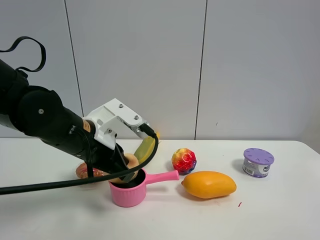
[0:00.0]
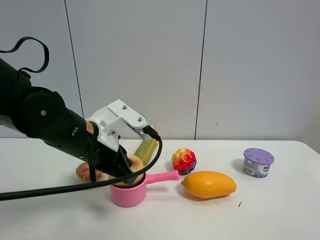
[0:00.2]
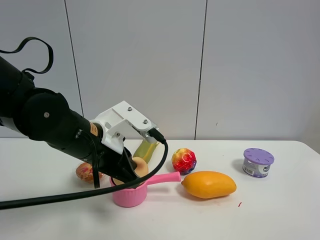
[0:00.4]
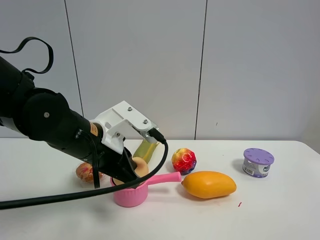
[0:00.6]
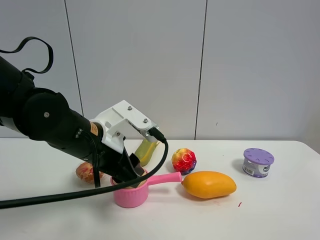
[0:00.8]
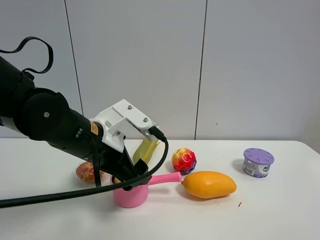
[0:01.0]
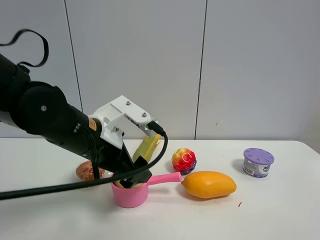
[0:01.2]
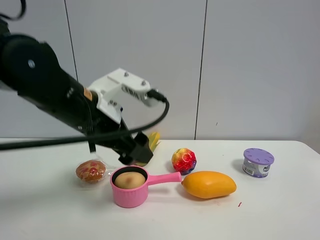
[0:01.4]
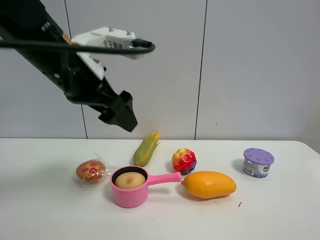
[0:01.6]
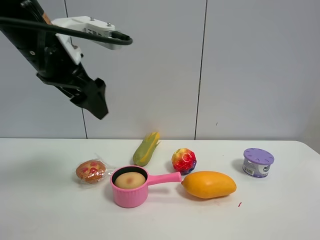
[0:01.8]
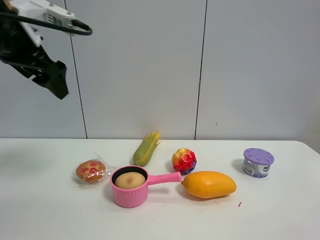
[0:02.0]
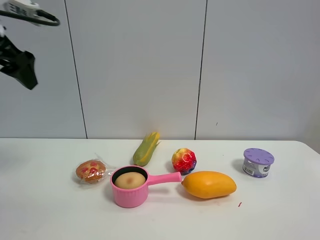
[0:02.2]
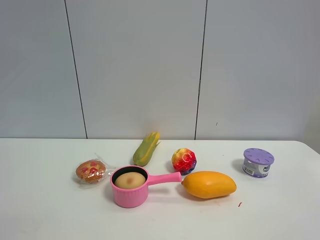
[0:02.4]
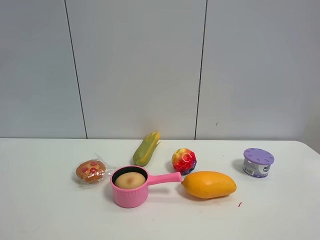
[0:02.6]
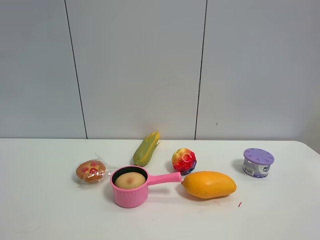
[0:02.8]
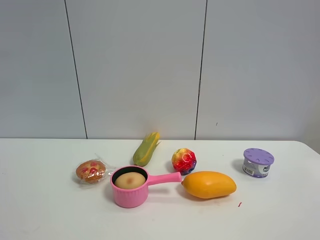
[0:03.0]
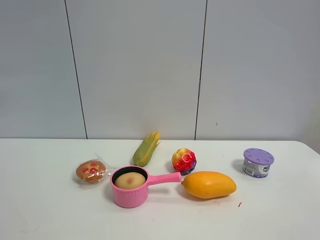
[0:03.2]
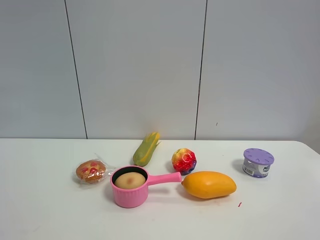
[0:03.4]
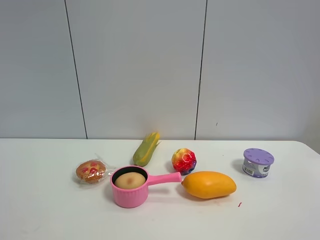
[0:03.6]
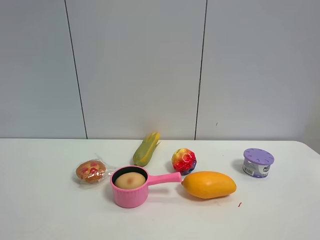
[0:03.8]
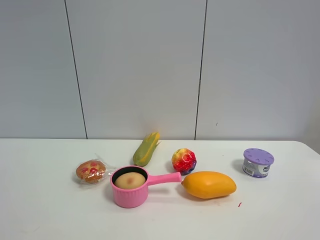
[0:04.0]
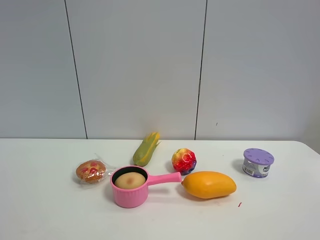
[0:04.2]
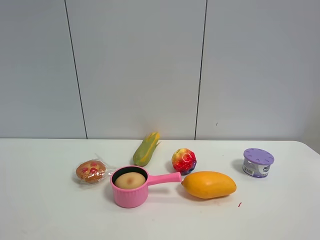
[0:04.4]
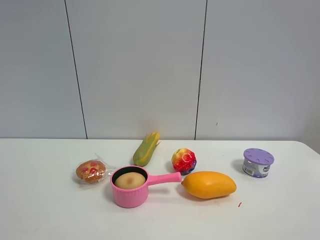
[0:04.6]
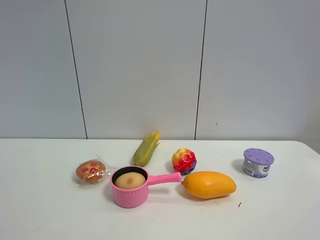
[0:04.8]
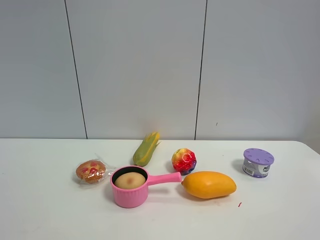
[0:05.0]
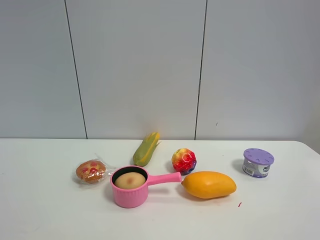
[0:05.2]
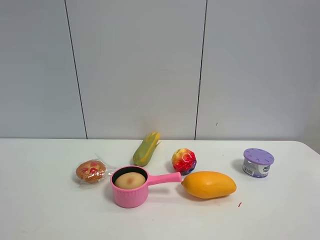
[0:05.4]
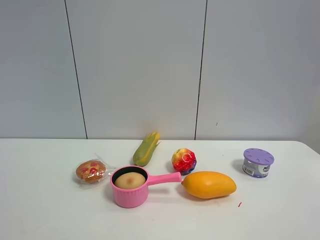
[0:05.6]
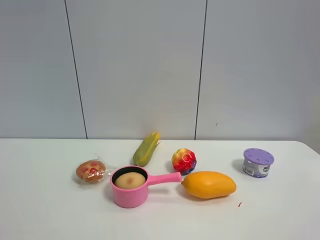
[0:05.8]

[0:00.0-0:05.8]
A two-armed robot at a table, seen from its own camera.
Task of the whole recording: the gripper move the object.
0:00.0 to 0:01.4: The left gripper is displaced upward by about 5 cm, and opens its fingers.
0:01.4 to 0:02.8: The left gripper heads to the left, upward and backward, covering roughly 35 cm.
0:04.4 to 0:05.8: Neither gripper changes place.

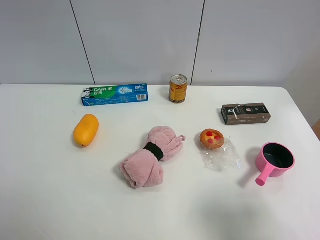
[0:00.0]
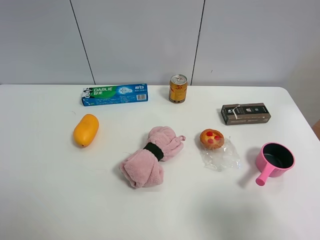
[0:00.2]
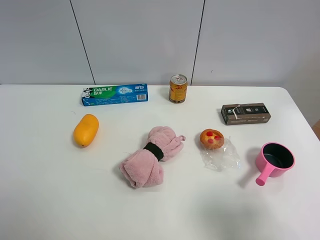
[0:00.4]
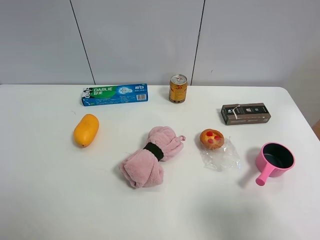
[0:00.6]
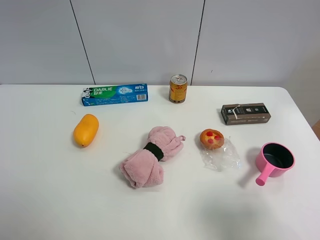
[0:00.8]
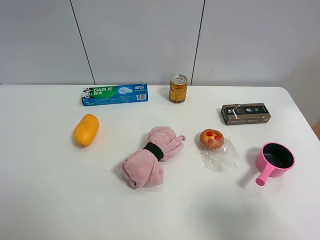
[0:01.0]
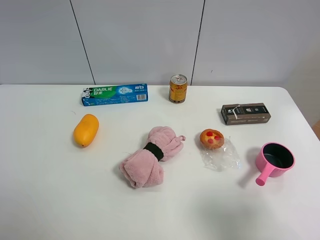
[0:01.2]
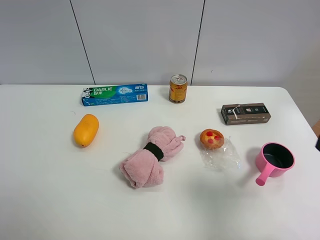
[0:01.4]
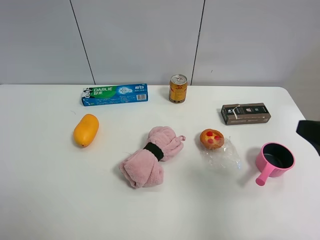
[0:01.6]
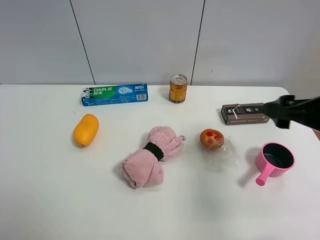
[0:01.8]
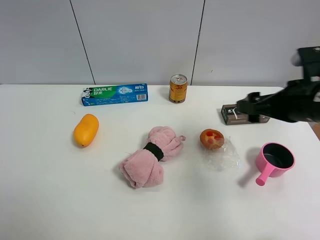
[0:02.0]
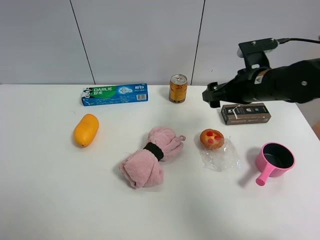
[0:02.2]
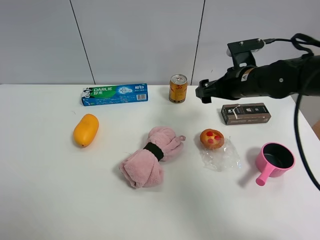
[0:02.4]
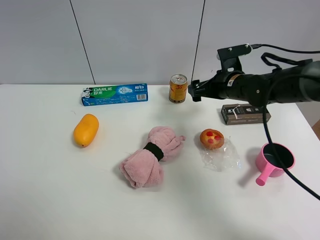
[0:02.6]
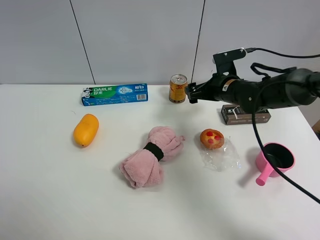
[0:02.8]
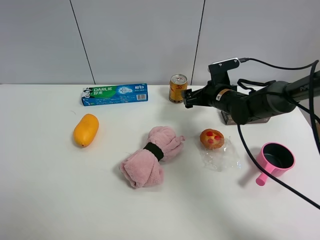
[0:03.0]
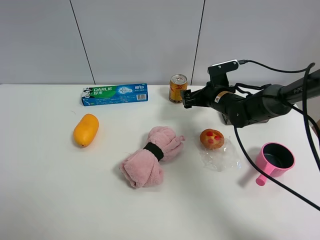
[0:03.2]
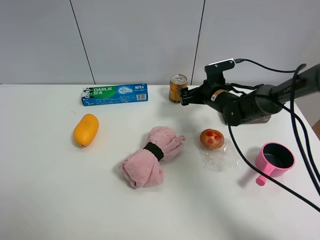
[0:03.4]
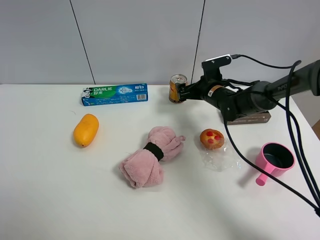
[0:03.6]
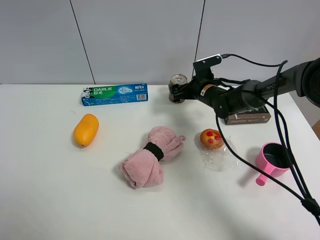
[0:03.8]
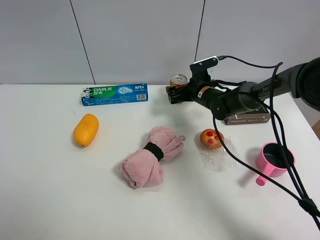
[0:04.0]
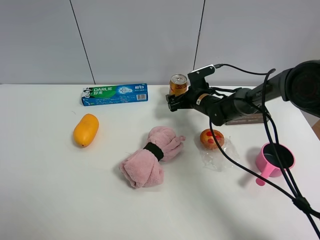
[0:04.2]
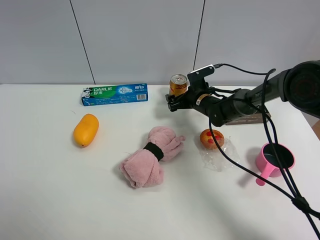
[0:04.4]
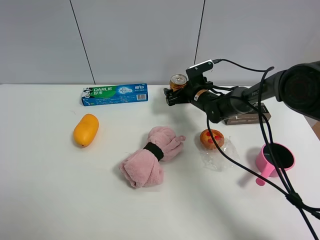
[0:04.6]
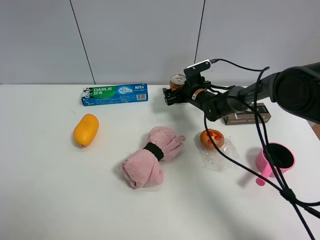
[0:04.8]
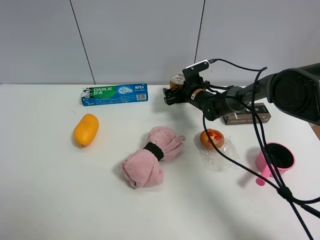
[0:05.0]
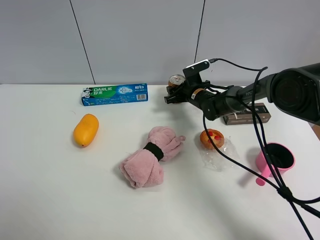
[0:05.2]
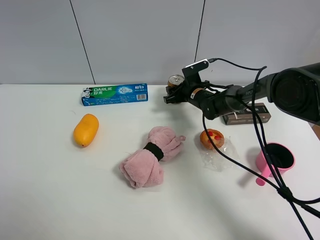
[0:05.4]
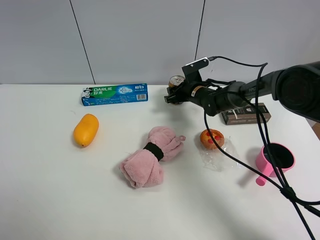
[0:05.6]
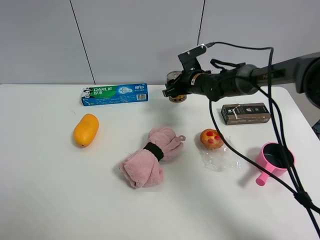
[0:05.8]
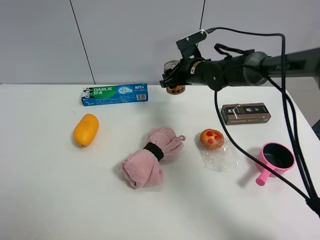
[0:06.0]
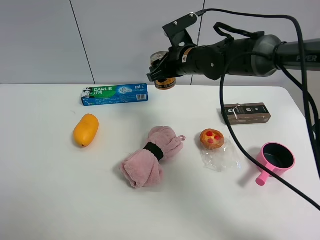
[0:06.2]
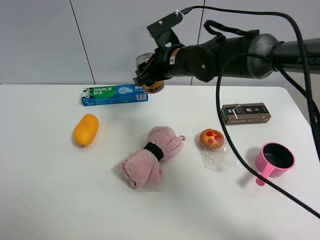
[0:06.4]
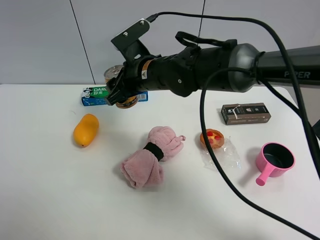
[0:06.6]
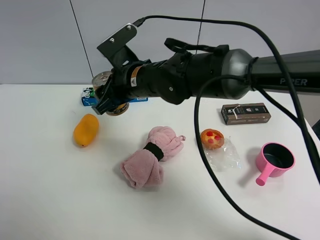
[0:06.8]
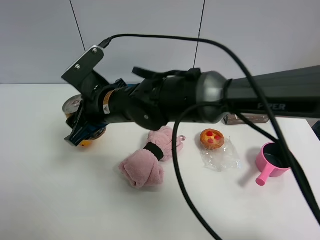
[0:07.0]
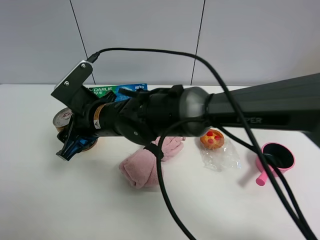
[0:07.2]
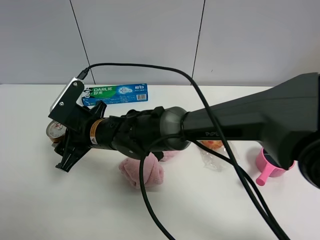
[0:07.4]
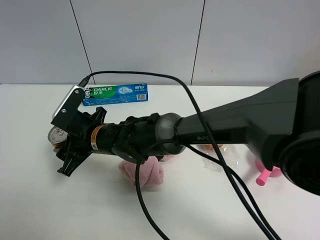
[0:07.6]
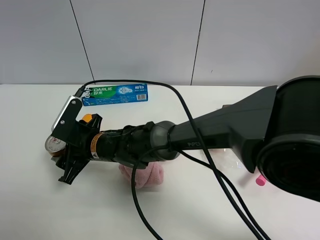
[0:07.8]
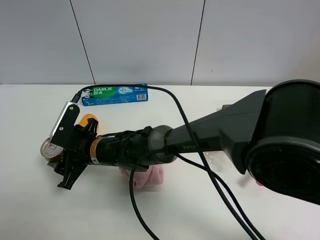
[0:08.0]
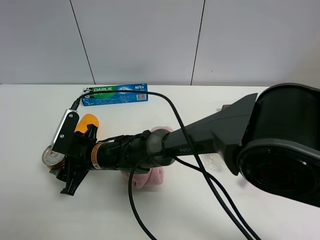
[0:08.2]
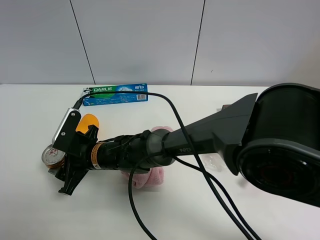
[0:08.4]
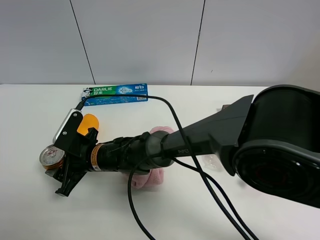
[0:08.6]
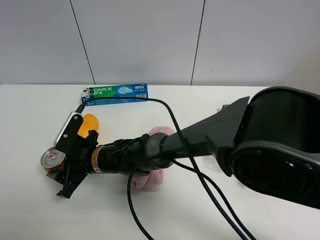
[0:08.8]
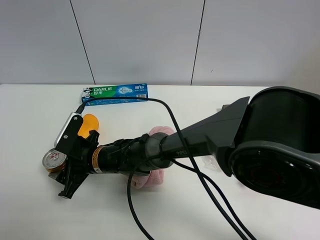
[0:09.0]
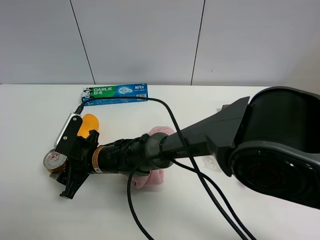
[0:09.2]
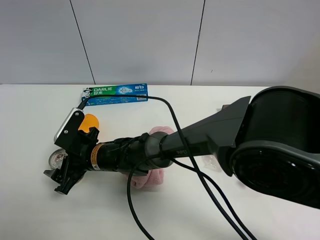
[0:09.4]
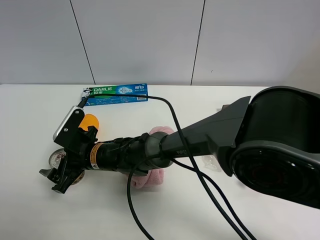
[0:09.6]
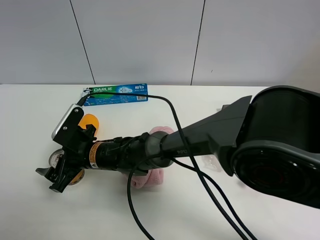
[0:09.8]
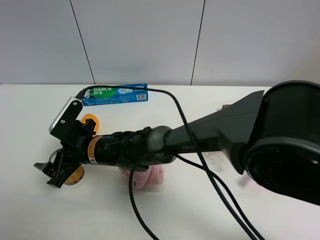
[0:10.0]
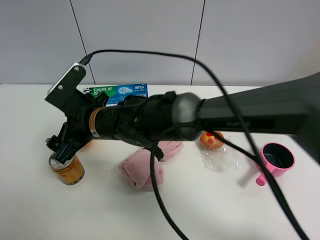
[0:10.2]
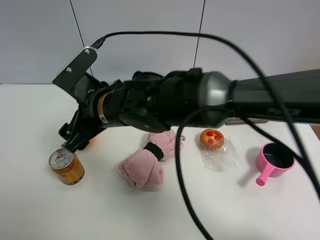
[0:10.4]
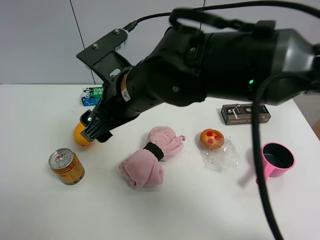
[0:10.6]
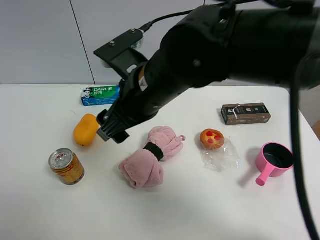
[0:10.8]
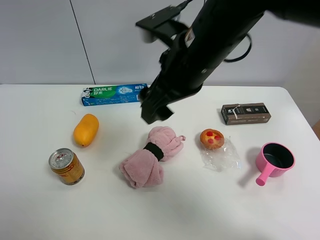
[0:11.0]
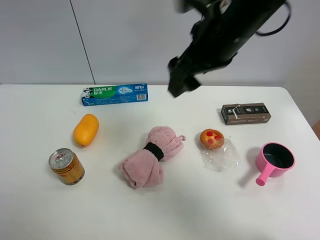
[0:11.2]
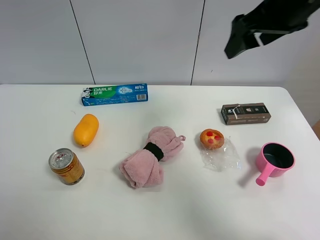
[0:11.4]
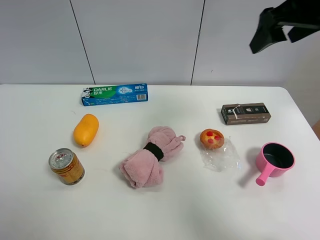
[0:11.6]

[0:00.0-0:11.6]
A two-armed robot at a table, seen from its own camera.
Task of the whole recording: the gripper move the object.
Step, 0:00.0 to 0:05.2: Grasp the red bull with the right gripper.
Step, 0:05.4 to 0:09.6: Place the red bull on the table with the right gripper.
0:00.0 to 0:01.4: The right gripper moves forward, roughly 5 cm.
0:01.4 to 0:02.8: The right gripper is displaced forward and downward by approximately 35 cm.
0:02.8 to 0:04.4: The right gripper moves downward and forward, roughly 10 cm.
0:04.4 to 0:05.8: The right gripper goes roughly 5 cm upward, and closes up.
0:05.8 to 0:07.2: The right gripper goes roughly 30 cm to the left and backward.
0:07.2 to 0:08.8: The right gripper travels downward by roughly 10 cm.
0:08.8 to 0:10.2: The right gripper travels upward by approximately 10 cm, and opens.
0:10.2 to 0:11.6: The right gripper heads to the right and upward, covering some 40 cm.

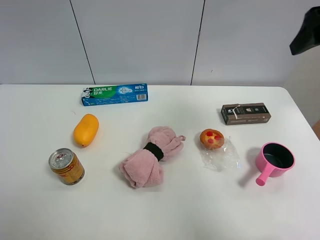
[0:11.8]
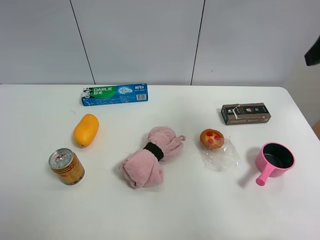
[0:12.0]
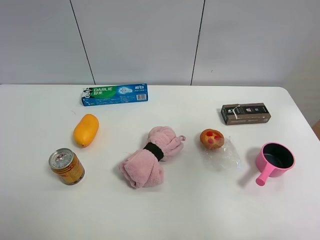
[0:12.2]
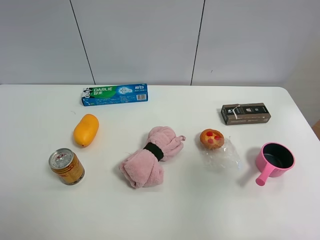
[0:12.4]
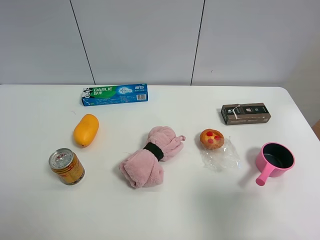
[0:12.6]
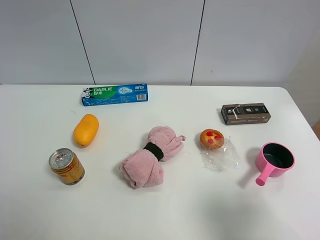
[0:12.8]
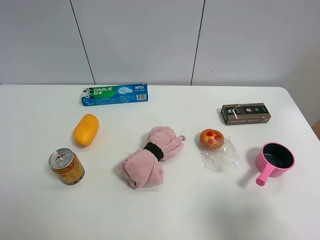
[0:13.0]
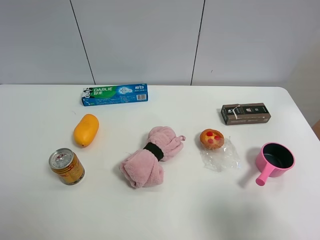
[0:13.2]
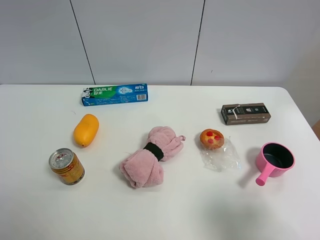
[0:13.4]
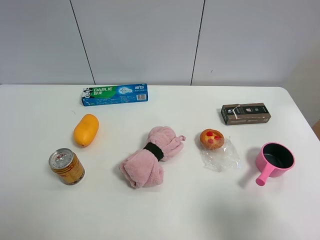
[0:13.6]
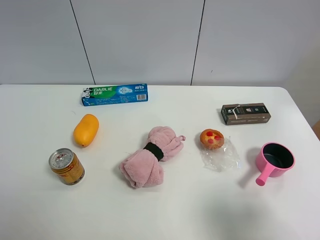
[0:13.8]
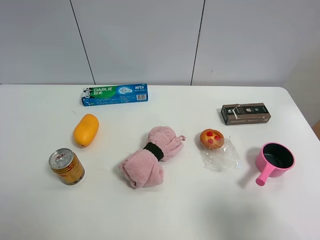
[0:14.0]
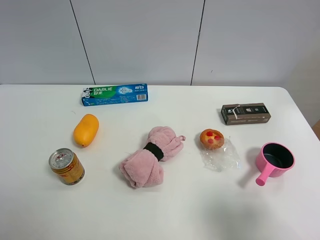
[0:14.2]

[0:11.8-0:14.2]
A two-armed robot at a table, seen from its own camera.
Task of the whole recording: the gripper move the object.
0:11.8 to 0:13.0: The right gripper heads backward and downward, covering approximately 30 cm.
0:13.0 to 0:14.2: Both grippers stay about where they are.

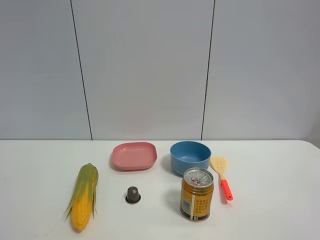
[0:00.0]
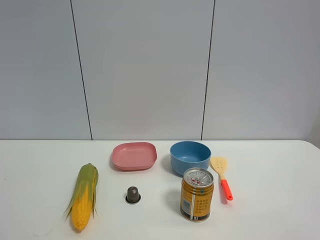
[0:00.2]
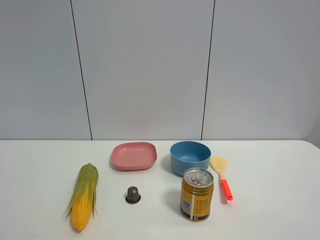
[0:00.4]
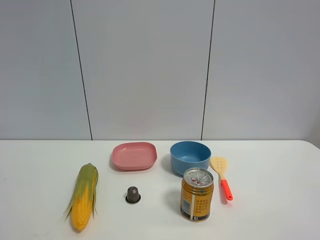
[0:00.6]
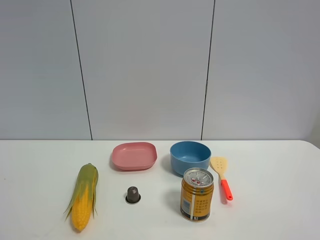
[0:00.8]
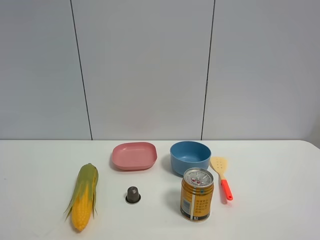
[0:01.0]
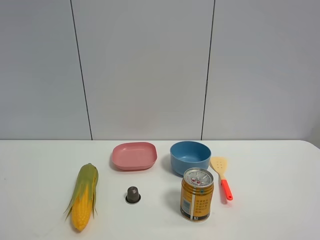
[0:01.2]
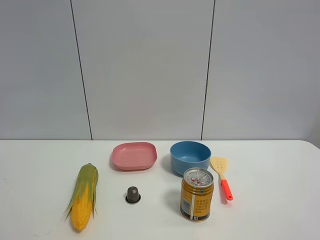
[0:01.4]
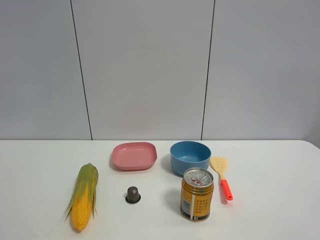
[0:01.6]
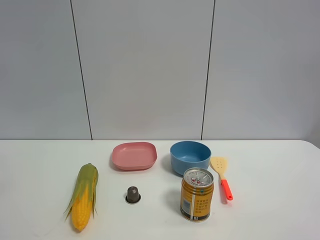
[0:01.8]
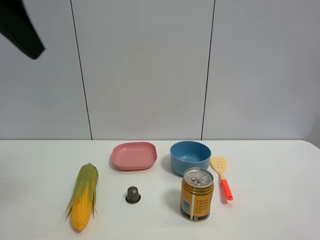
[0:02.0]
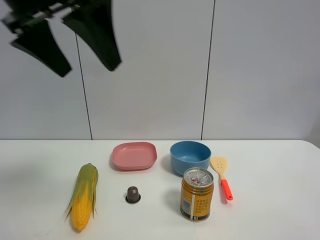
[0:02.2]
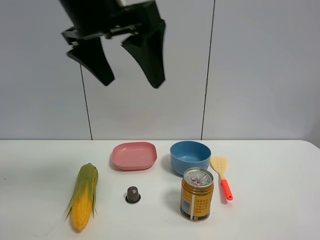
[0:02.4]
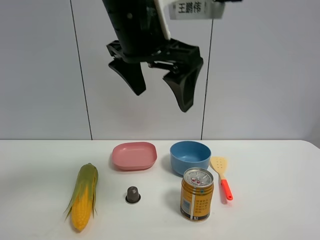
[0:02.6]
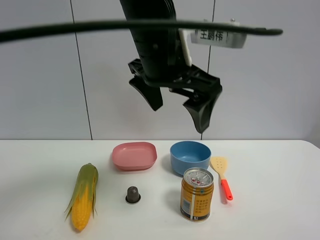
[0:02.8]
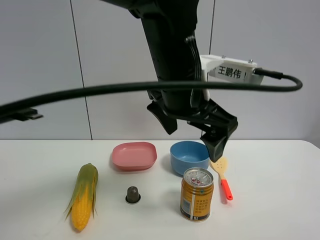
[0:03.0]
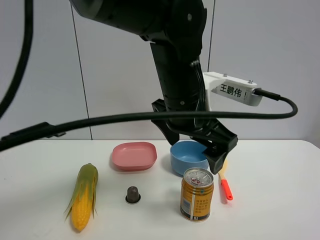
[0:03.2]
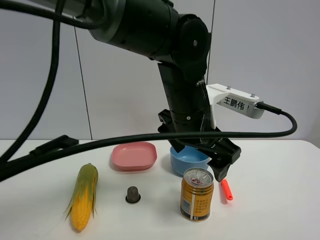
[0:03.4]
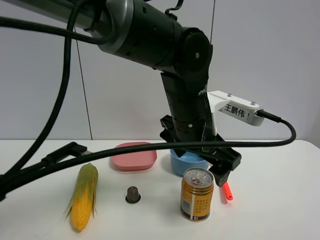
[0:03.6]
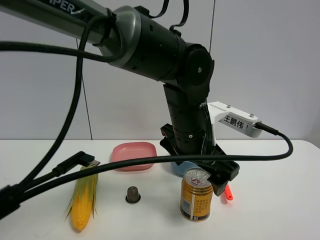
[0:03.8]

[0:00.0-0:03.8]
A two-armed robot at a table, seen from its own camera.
Task of the whole recording: the gripper move the object.
0:01.2 to 0:02.6: The left gripper moves to the right and forward, some 40 cm.
0:02.6 to 0:03.8: The left gripper moves downward and to the right, some 15 cm.
